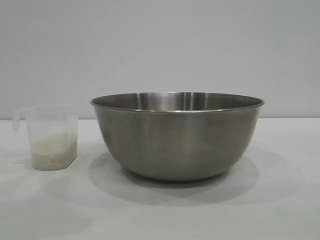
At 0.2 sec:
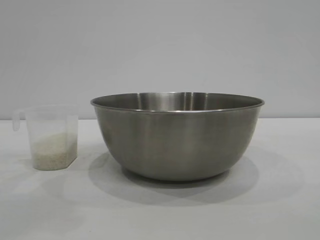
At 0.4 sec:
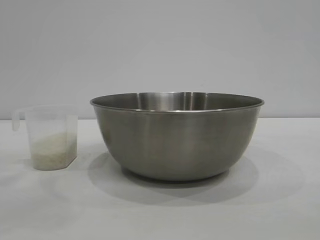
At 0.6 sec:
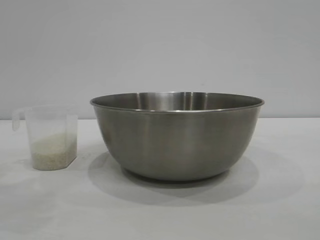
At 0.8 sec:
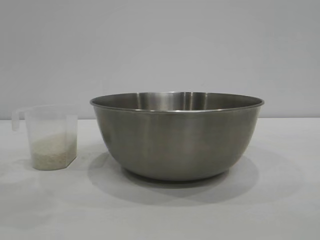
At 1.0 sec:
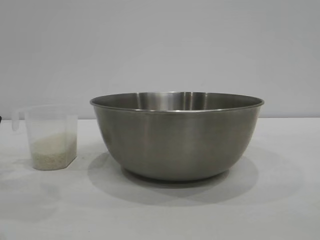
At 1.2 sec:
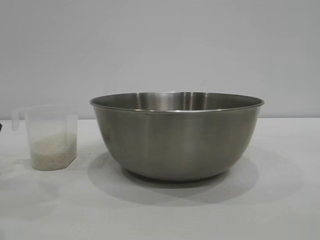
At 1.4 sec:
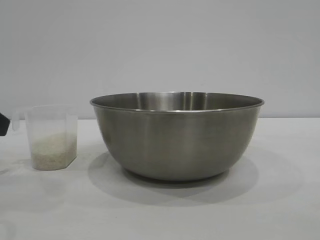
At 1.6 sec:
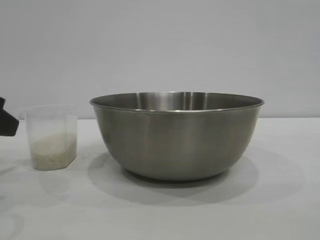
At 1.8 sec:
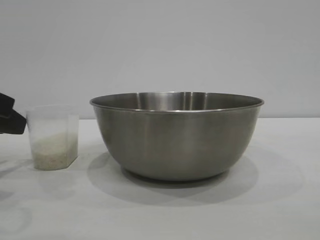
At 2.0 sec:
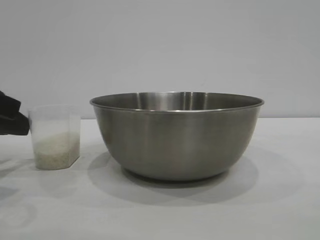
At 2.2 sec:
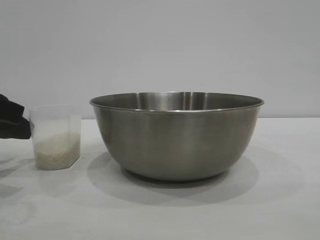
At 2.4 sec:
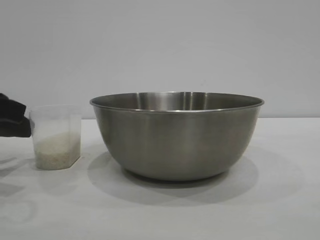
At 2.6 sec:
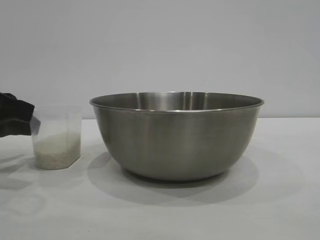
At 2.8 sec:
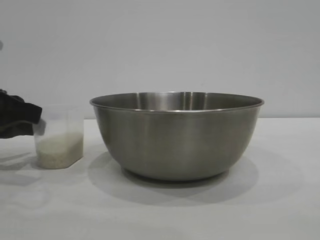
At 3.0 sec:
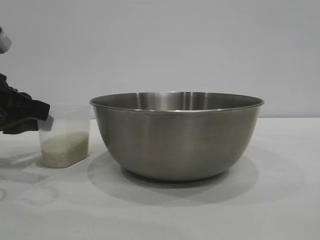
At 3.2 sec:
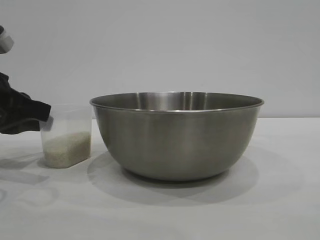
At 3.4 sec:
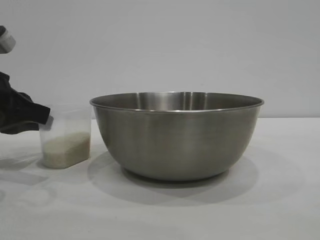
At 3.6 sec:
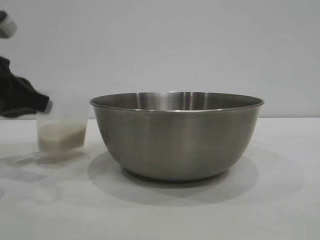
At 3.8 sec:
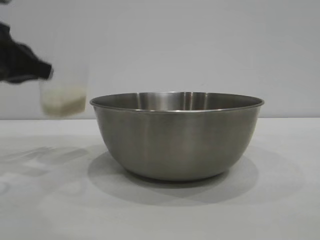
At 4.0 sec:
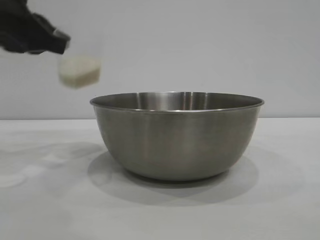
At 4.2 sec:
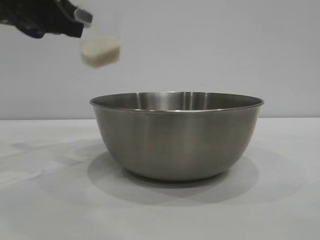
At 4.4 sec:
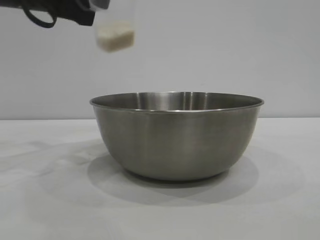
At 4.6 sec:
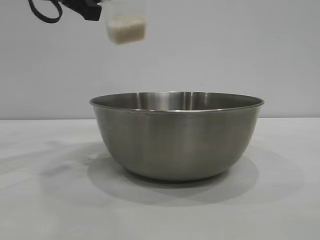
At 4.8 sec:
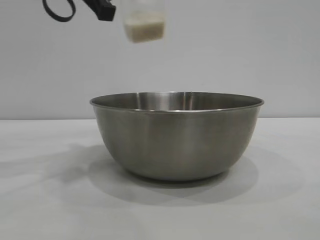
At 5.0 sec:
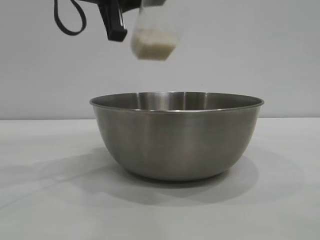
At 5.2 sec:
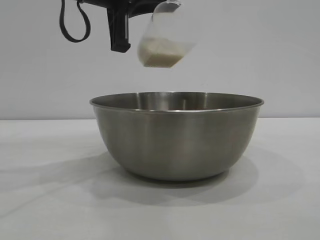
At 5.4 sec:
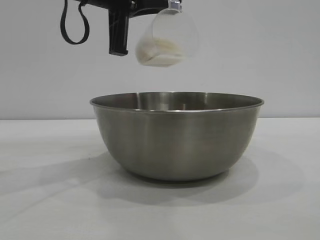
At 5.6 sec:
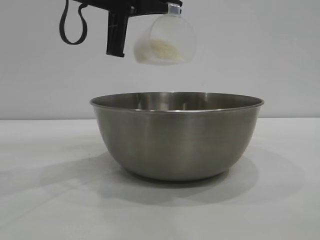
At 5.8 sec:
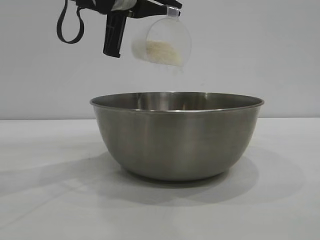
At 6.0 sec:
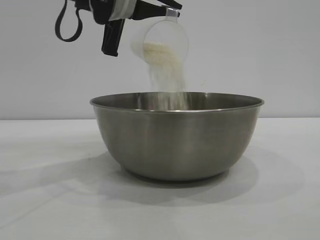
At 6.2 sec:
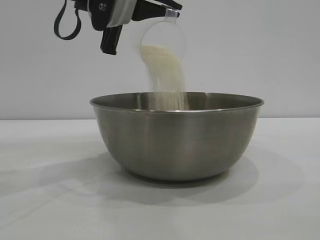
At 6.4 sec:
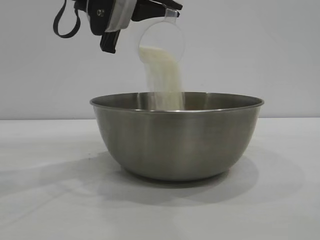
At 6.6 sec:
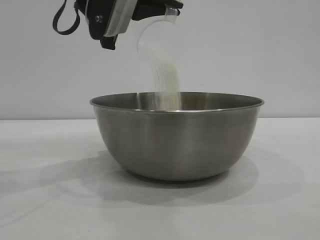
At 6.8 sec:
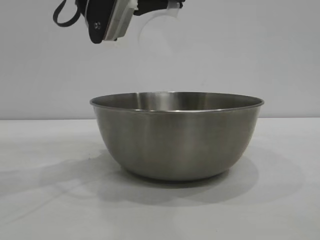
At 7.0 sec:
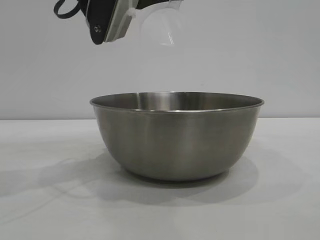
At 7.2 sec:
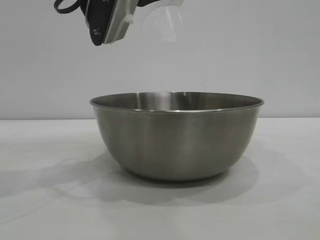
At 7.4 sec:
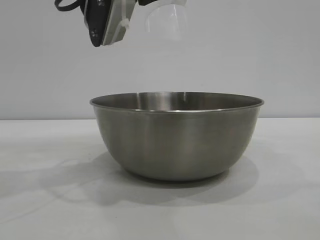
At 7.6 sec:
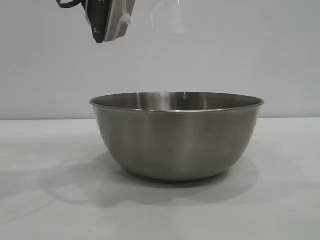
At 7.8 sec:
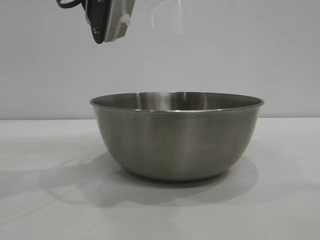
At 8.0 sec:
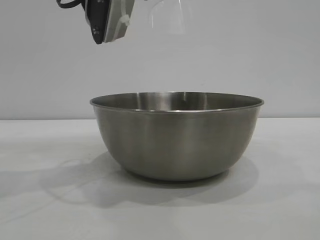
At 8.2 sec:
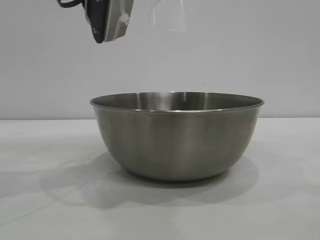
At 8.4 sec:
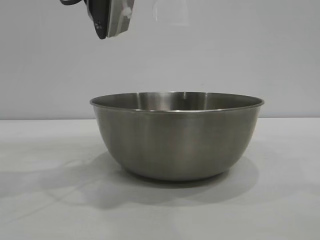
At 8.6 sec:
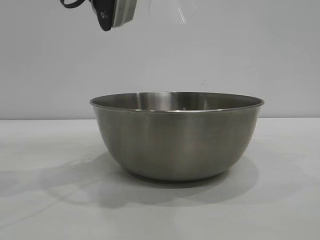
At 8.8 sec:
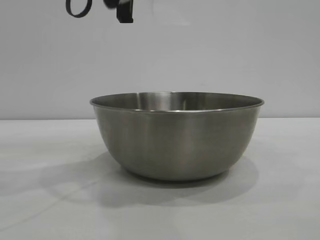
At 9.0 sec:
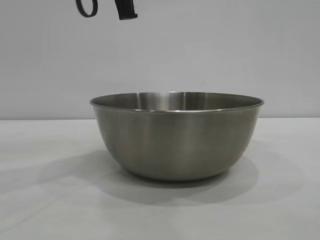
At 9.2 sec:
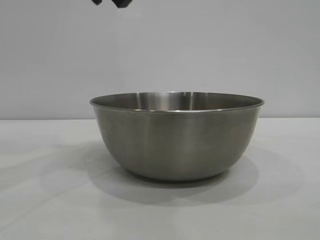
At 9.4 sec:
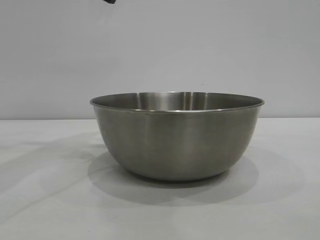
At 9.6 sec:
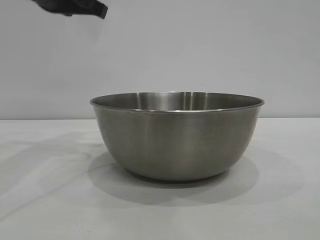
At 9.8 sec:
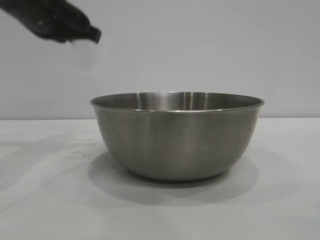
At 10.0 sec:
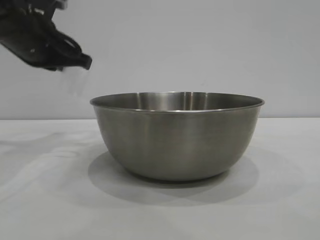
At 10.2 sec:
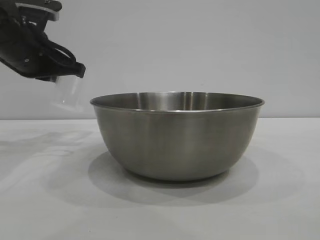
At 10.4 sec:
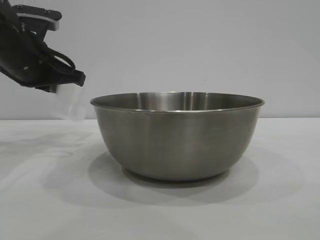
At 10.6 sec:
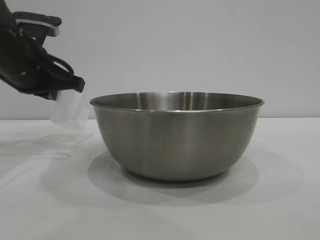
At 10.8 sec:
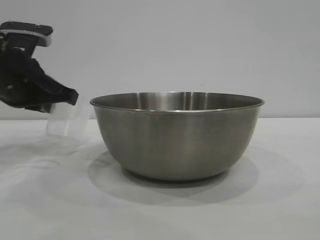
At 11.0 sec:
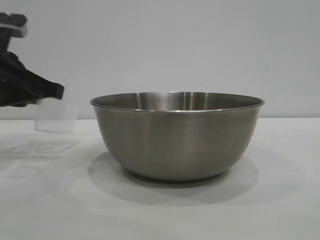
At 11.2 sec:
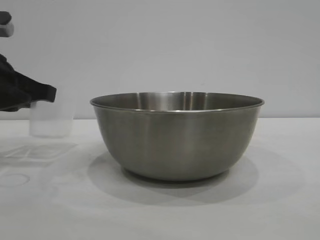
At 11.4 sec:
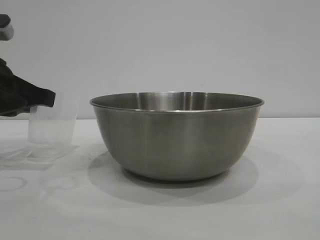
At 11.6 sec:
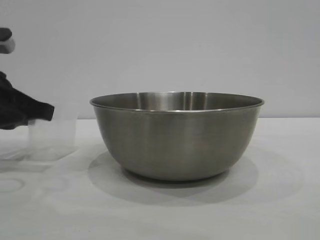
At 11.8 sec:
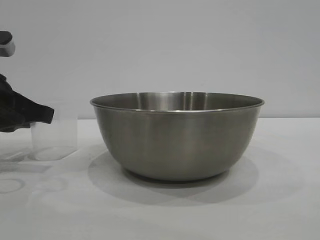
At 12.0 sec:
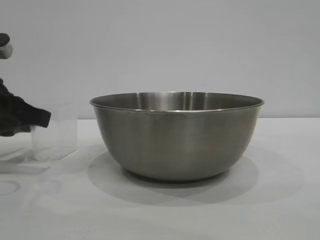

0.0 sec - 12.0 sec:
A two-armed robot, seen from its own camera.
Task of the whole recording: the right gripper grasp the rice container and place it in the center of the table, the left gripper grasp the rice scoop and pour the rice into the rice container.
Step, 0.0 sec - 3.8 sec: Pick up the cup with rice in it with the left gripper.
Step, 4.0 sec - 8.6 sec: Pour the rice from the cup into the bowl with the left gripper.

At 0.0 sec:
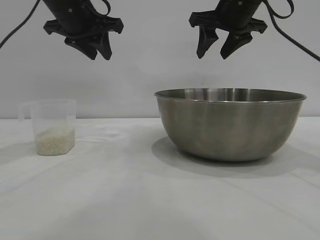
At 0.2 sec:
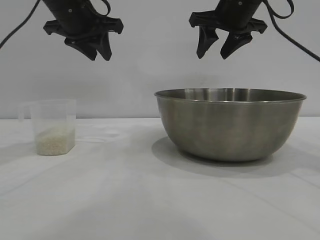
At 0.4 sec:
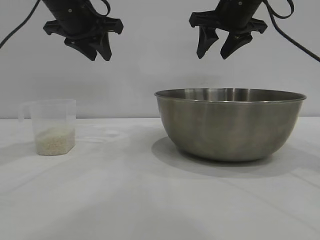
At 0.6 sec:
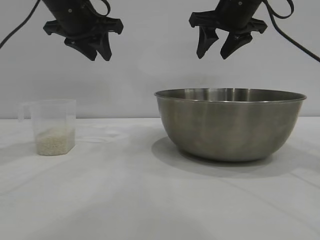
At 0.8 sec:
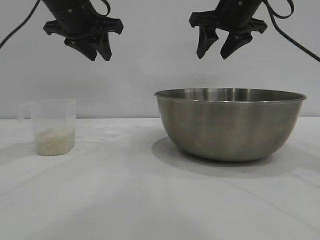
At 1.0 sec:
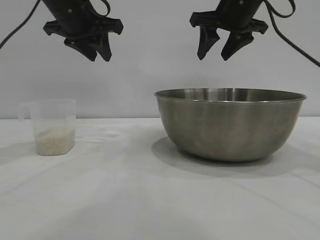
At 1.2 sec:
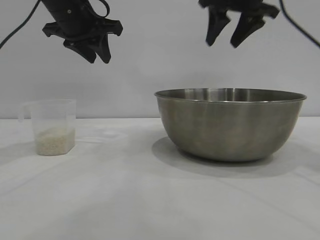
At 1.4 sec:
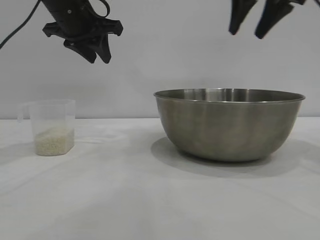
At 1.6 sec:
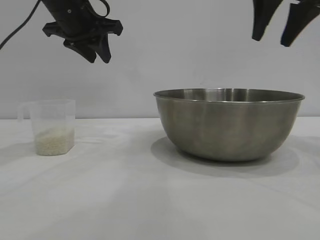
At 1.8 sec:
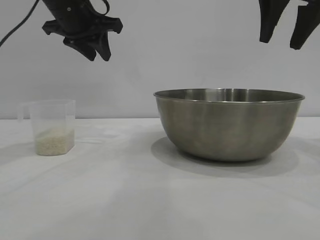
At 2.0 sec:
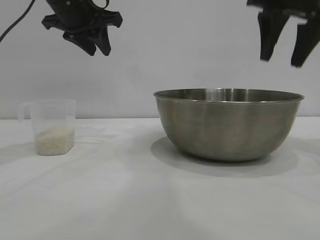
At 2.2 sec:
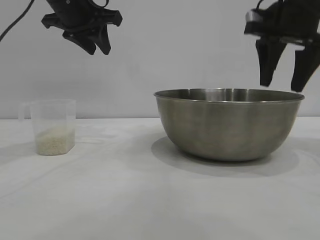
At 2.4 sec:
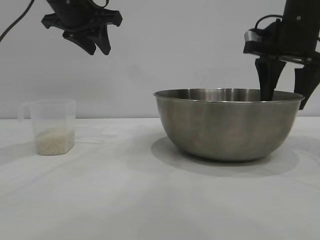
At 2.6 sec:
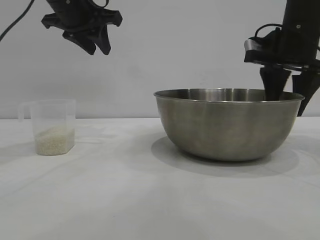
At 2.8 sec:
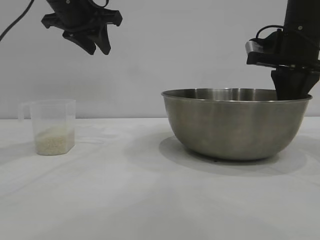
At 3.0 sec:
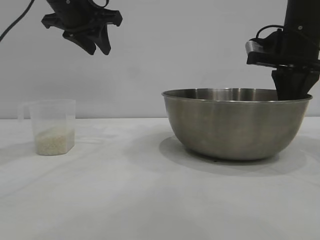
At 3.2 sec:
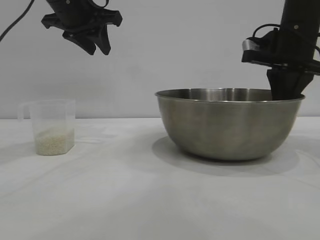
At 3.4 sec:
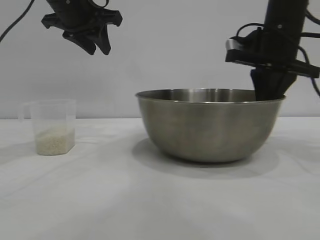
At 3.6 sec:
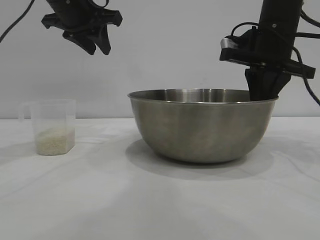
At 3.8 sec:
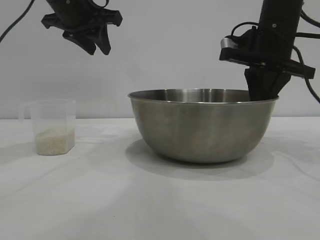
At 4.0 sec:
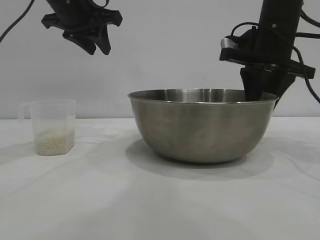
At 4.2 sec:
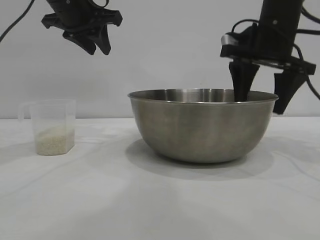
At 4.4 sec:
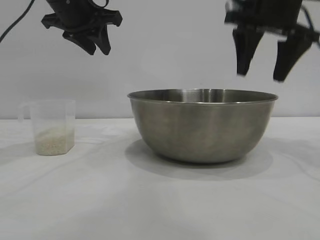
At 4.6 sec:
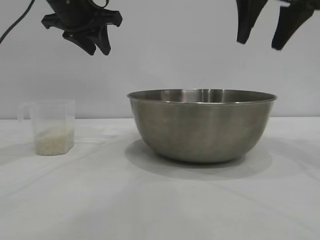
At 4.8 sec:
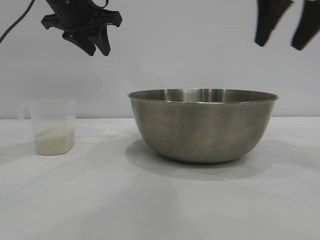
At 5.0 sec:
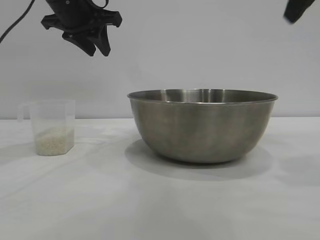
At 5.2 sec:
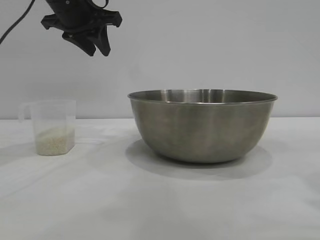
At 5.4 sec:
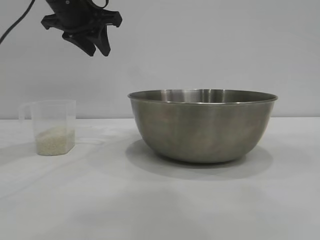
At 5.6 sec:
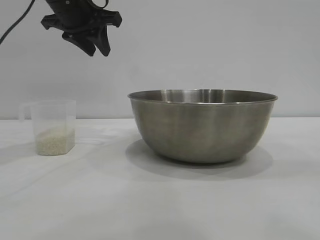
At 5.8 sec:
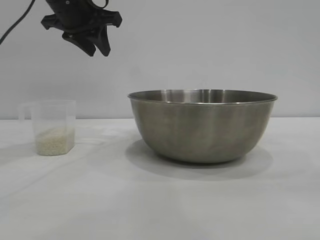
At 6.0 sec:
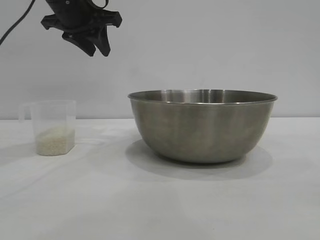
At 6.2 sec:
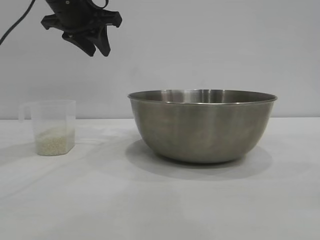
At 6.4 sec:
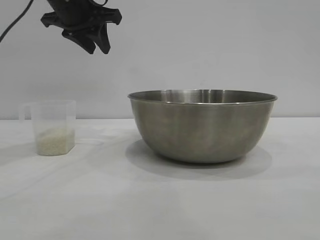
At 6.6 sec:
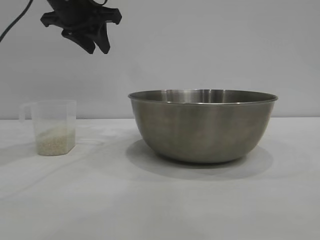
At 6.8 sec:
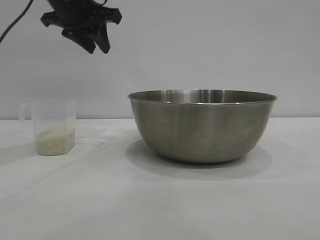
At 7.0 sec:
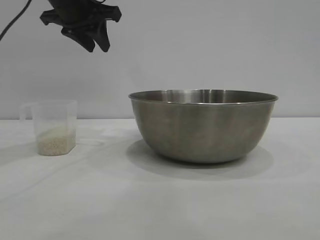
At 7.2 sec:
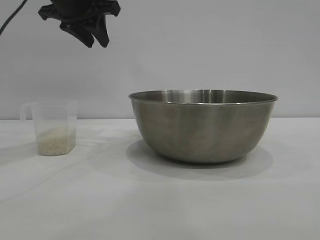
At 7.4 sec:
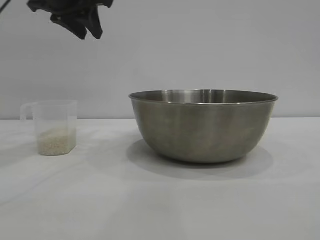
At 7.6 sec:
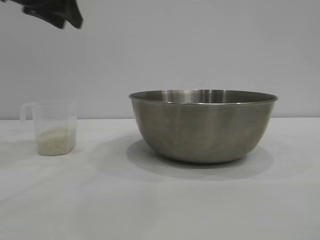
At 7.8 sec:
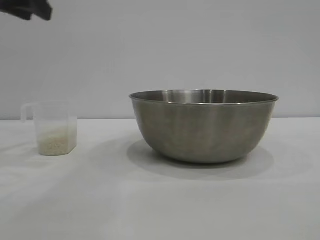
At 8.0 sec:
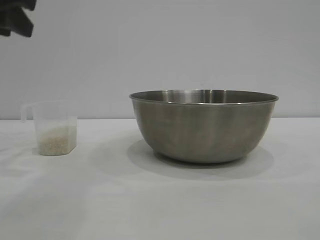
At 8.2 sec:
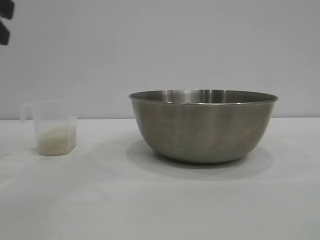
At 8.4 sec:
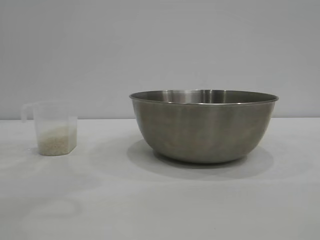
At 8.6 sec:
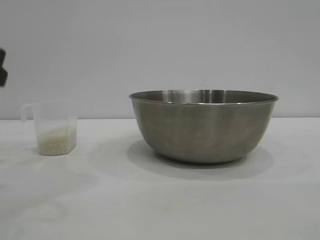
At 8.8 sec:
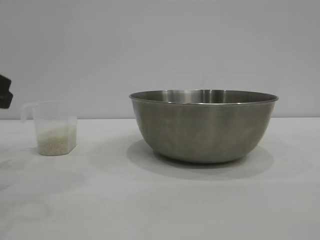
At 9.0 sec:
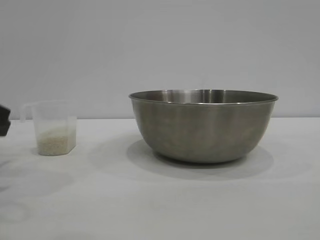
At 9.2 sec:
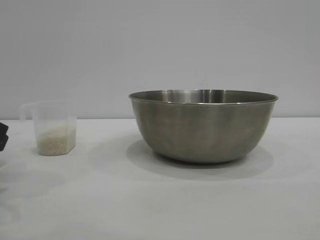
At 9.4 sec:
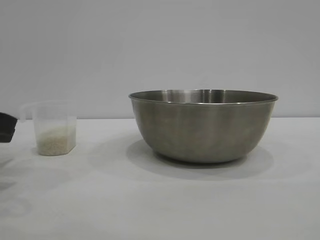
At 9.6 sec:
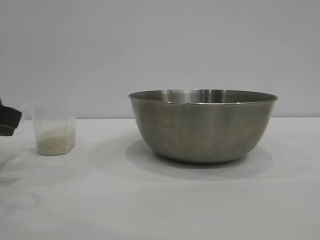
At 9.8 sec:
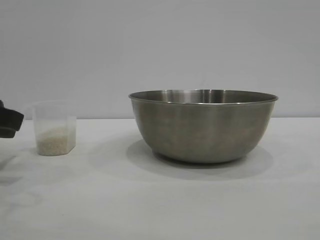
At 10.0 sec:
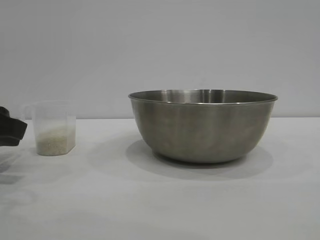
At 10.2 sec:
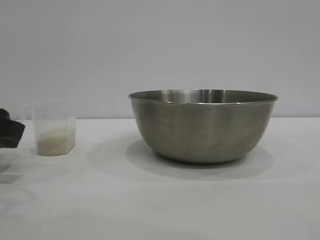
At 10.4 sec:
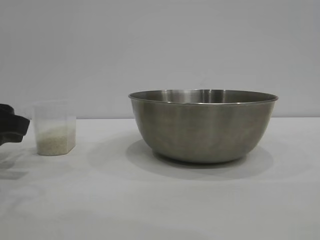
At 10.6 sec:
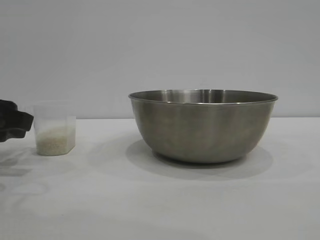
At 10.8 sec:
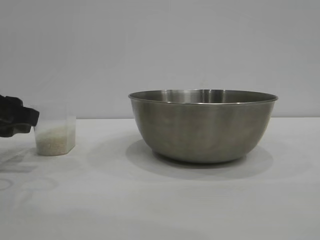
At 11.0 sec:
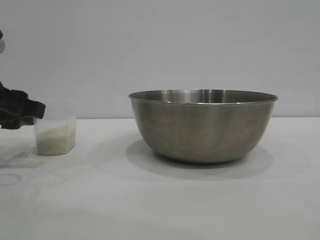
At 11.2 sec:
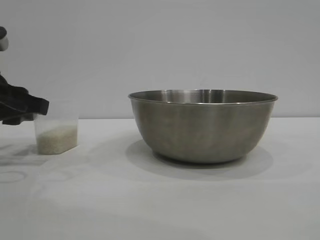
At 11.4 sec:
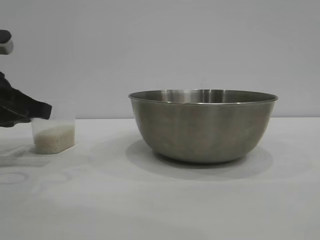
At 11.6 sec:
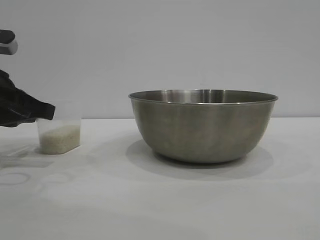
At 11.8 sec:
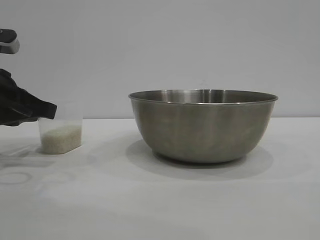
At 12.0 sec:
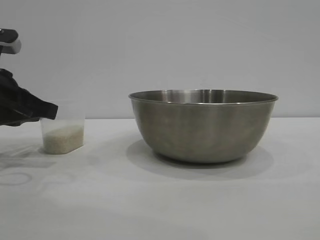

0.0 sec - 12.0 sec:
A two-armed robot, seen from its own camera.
Task of the whole recording: the right gripper grasp the rice container and place it in the center of the table, the left gripper grasp the rice scoop and pour the rice into the rice container.
Step, 0.0 sec - 4.2 sec: Move the bowl to the center of view with the right gripper.
